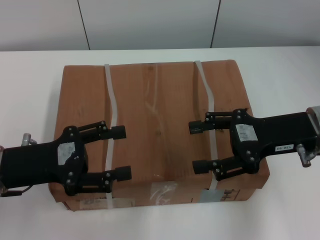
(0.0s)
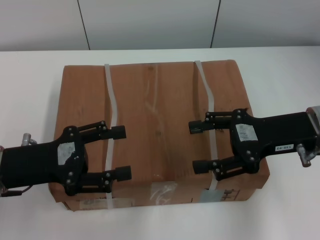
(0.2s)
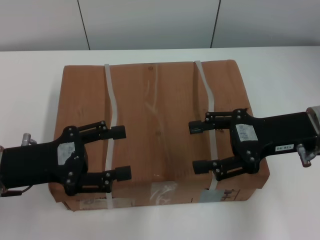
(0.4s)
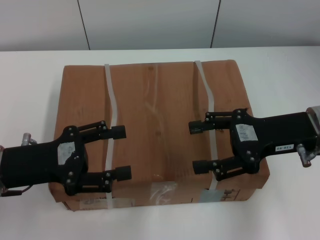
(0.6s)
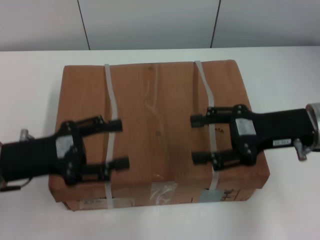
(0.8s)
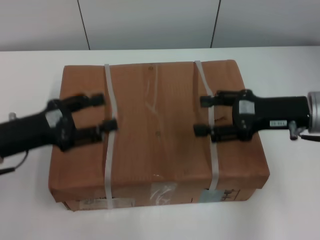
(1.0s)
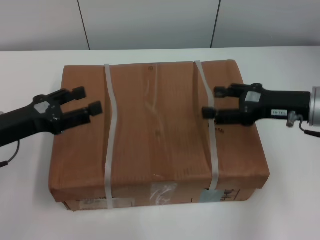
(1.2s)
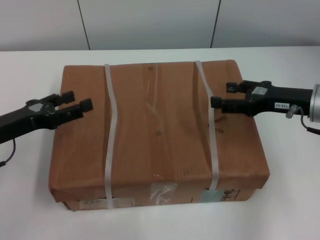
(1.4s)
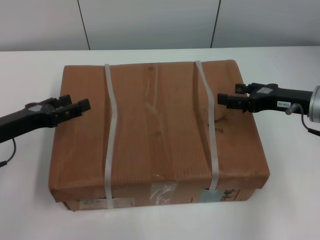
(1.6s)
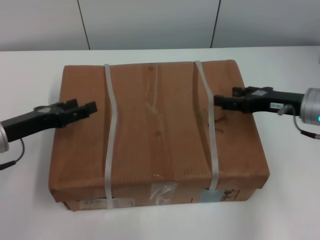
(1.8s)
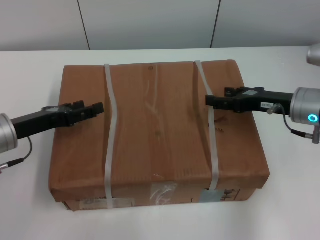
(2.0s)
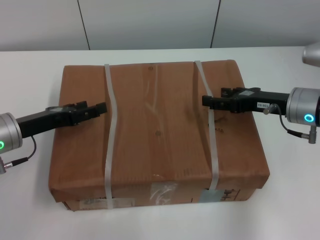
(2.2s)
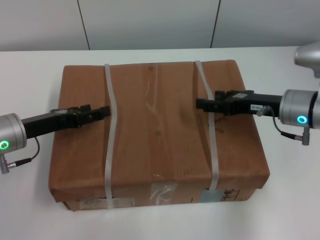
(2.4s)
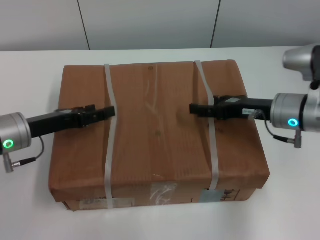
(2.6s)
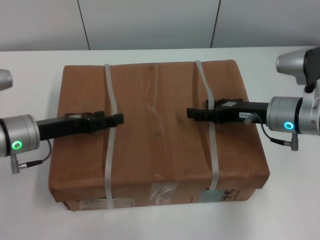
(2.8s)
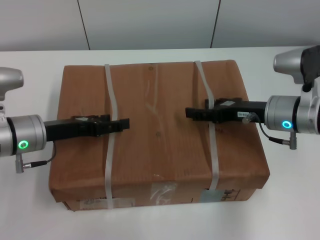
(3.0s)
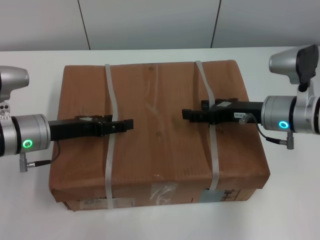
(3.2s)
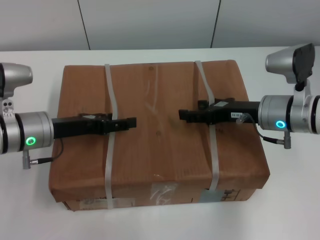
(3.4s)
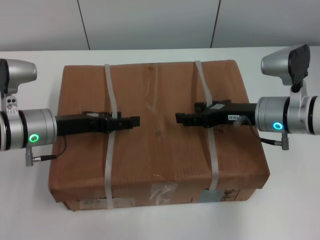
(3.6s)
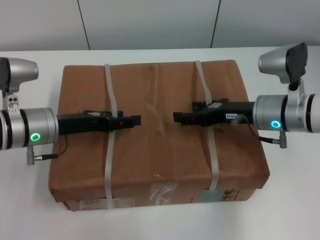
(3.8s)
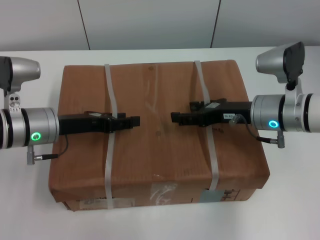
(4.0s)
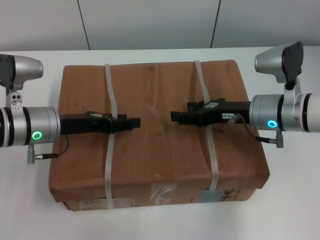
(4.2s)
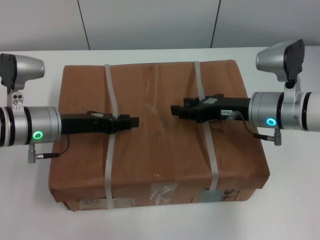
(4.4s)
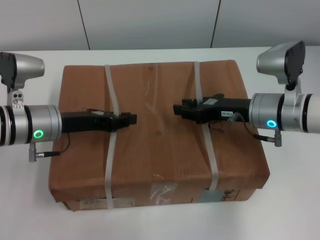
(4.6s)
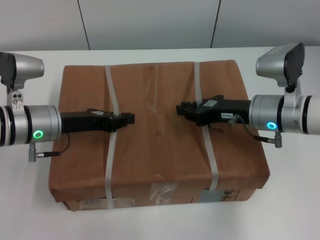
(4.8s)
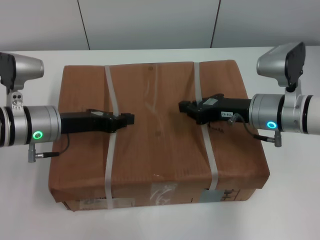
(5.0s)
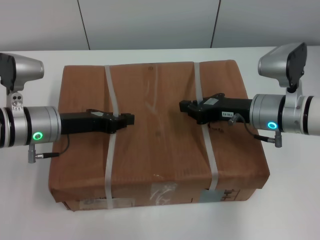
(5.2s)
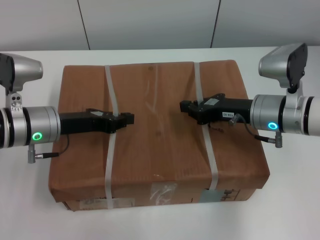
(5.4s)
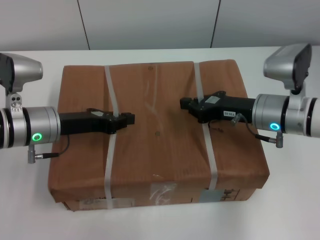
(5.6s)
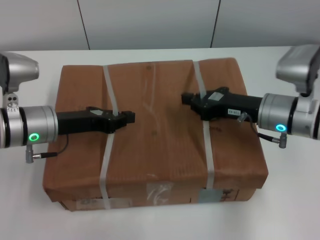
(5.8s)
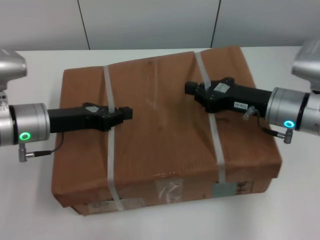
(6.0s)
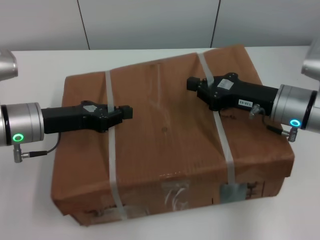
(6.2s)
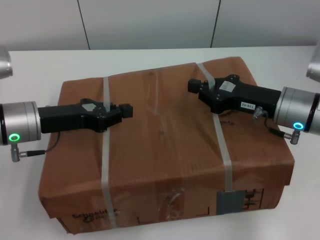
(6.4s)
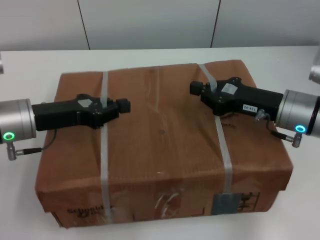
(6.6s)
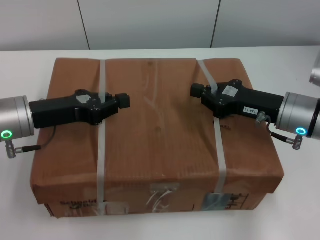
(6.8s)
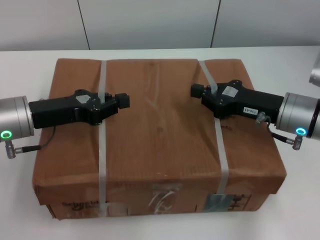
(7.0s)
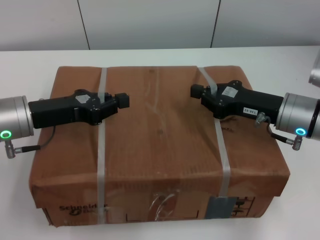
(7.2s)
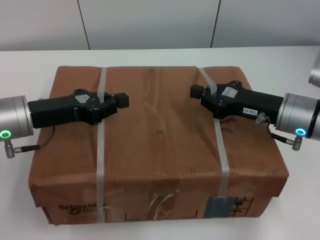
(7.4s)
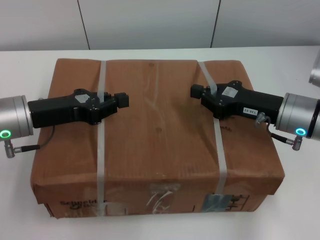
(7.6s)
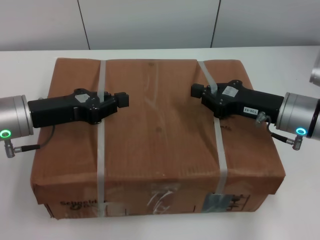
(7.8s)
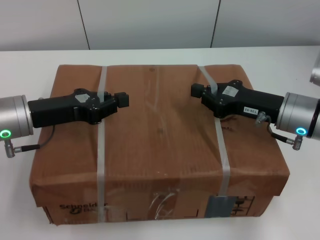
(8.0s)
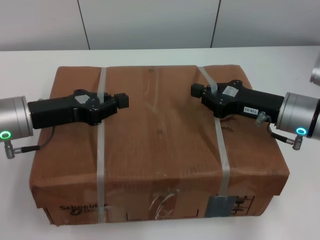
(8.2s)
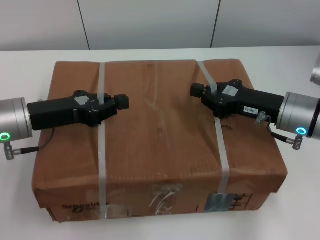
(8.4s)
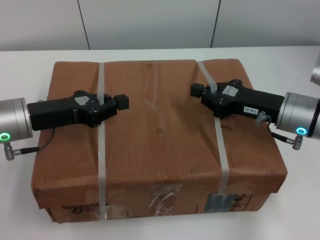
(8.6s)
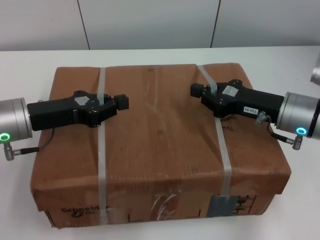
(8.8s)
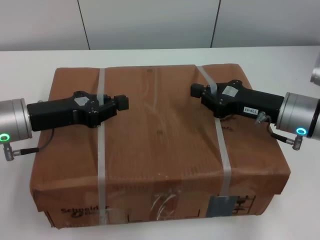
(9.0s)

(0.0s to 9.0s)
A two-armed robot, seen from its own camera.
Task of the whole recording: pick up the box from the table with both arms.
Step, 0.8s - 5.0s: Grasp the bandage with left gripper.
Step, 0.8s - 5.0s: Grasp the bandage with right gripper.
Step, 5.2s - 6.8s: Lift the box with left gripper.
Step, 5.2s - 6.8s: Lift the box with right gripper.
0.0s - 1.6s: The right gripper changes place by roughly 5 cm, while the left gripper moves some 5 cm.
1.6s - 3.0s: The left gripper is displaced to the right by roughly 5 cm; the right gripper heads to the left, covering approximately 5 cm.
3.0s - 4.4s: The left gripper closes its fingers.
4.4s - 6.0s: The right gripper closes up. Meanwhile the left gripper closes its fingers.
7.6s - 9.0s: Both grippers stay put.
